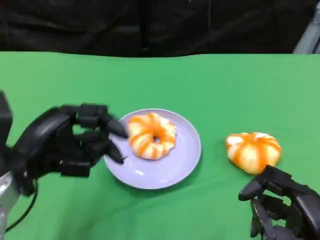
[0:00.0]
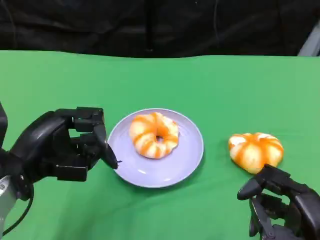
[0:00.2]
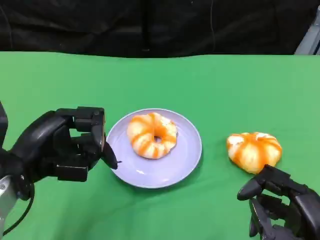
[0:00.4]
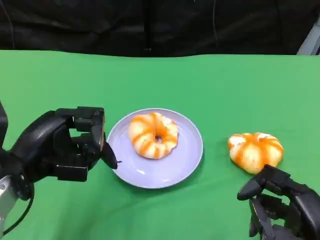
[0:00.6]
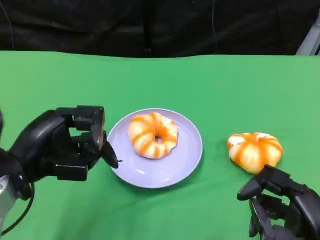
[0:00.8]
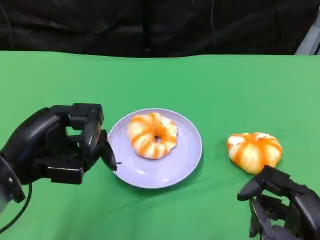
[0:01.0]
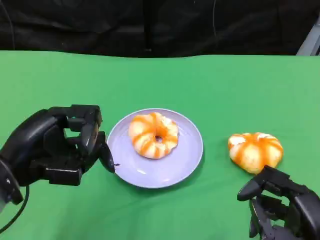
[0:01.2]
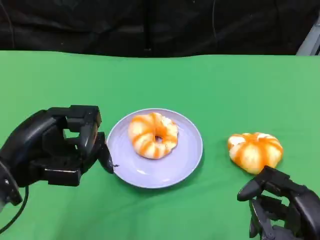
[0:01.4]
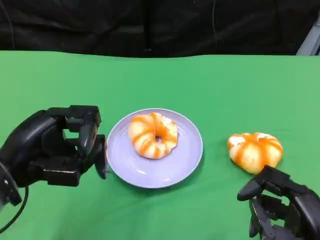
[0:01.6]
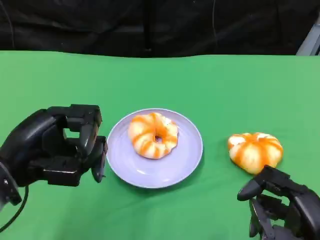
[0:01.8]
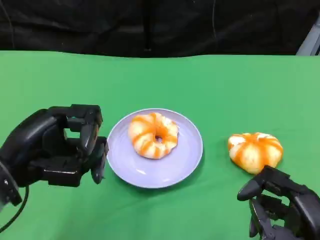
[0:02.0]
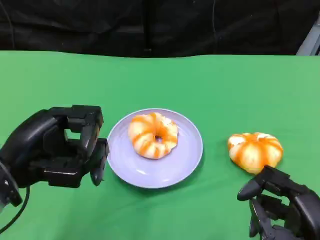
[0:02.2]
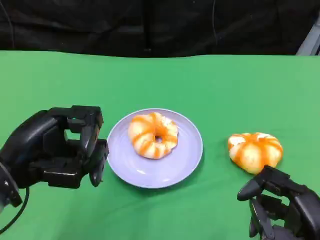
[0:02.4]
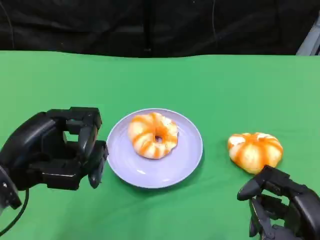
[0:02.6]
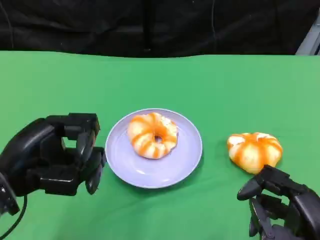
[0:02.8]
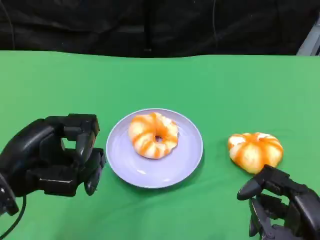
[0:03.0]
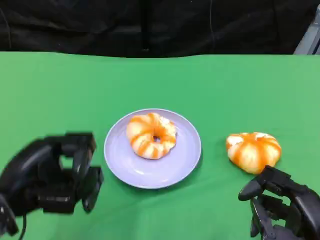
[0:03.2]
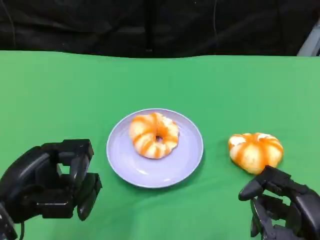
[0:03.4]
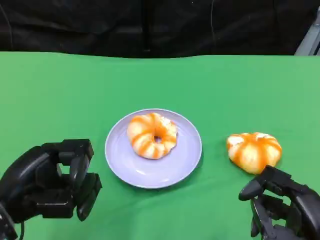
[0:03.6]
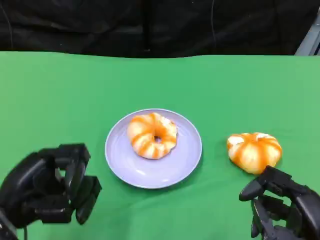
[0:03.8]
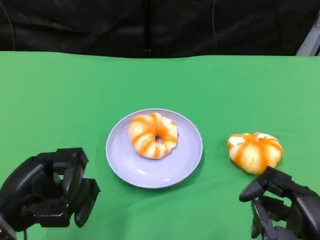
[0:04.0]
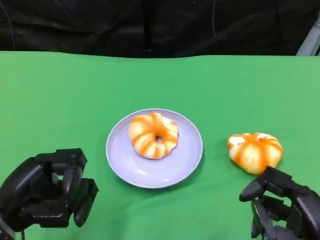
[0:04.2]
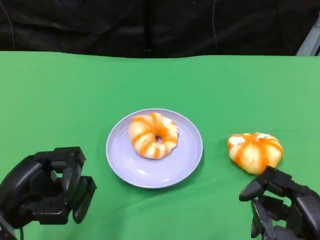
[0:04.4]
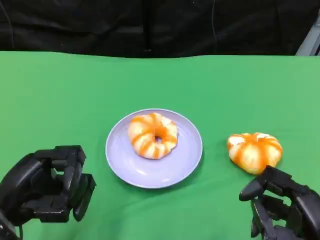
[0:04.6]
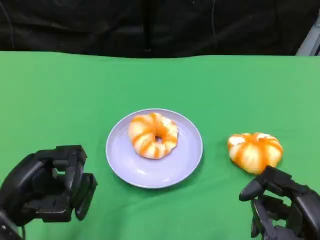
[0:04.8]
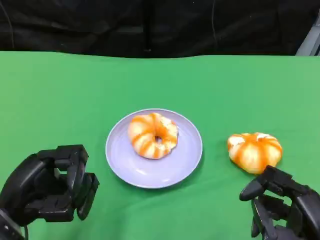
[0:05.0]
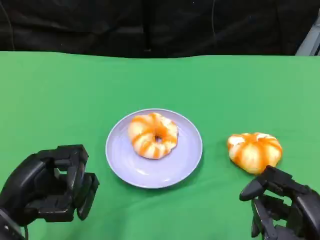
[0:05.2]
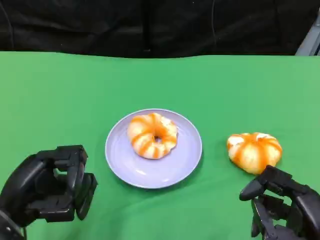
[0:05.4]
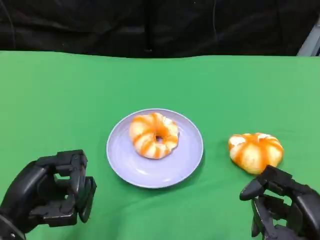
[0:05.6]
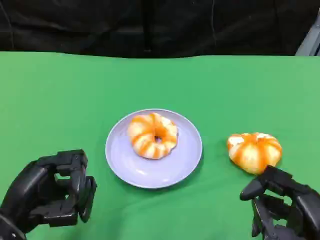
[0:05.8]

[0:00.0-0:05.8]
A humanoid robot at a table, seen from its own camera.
Task of the whole recording: Grasp the bread from the table and place it into the plate.
0:00.0 to 0:01.4: The hands make only small movements.
0:01.4 to 0:02.8: Both hands stay put.
0:02.8 to 0:04.4: The left hand heads downward, covering roughly 5 cm.
0:04.4 to 0:05.8: There are only small adjustments of the hands.

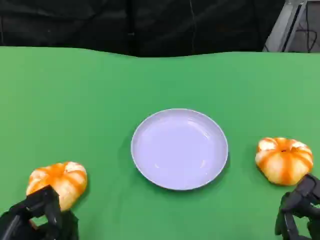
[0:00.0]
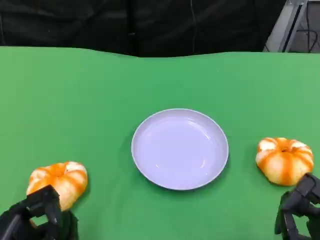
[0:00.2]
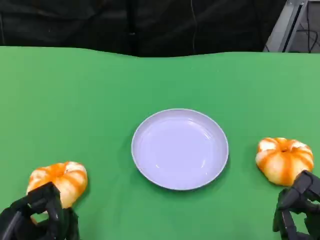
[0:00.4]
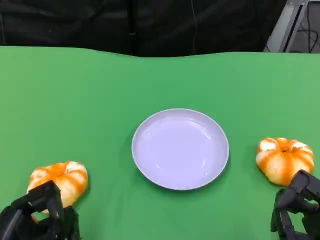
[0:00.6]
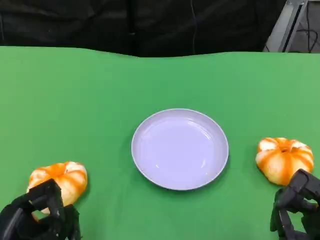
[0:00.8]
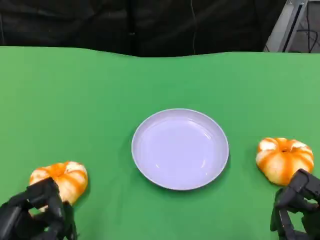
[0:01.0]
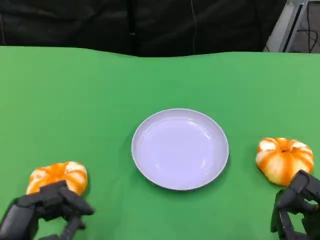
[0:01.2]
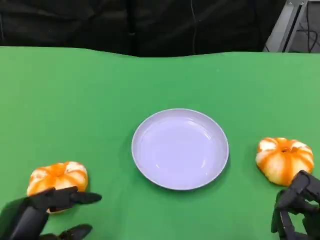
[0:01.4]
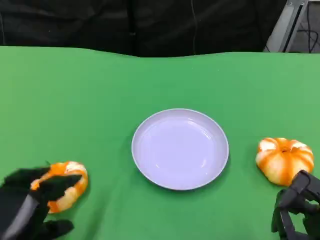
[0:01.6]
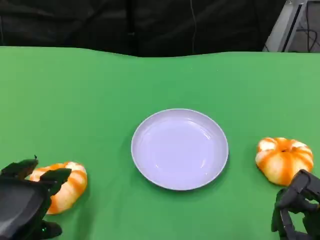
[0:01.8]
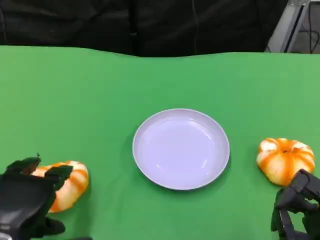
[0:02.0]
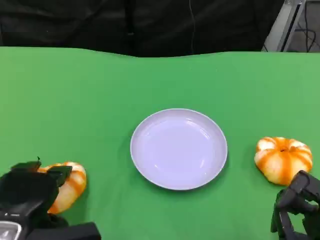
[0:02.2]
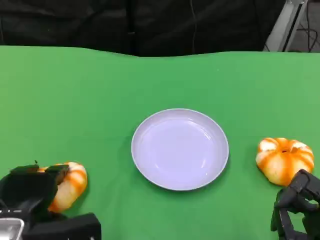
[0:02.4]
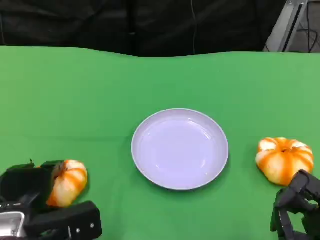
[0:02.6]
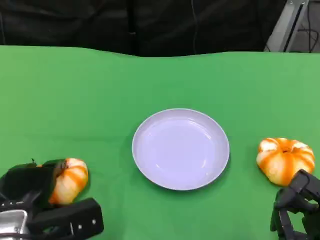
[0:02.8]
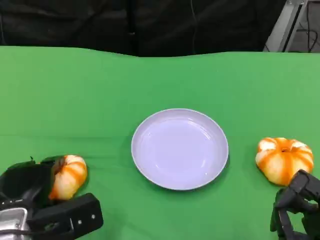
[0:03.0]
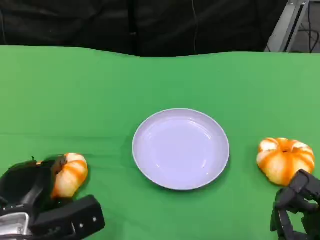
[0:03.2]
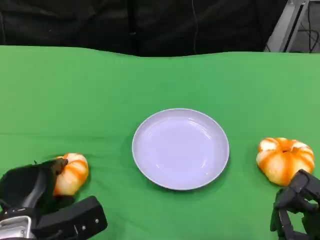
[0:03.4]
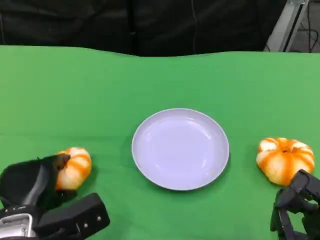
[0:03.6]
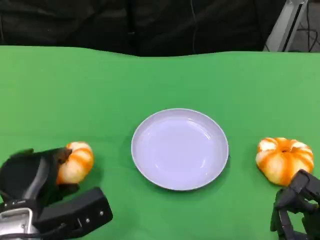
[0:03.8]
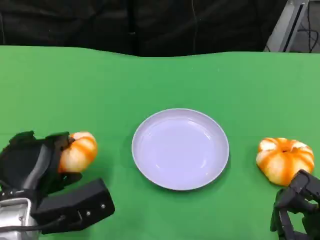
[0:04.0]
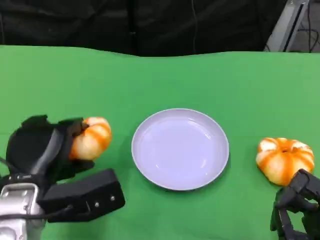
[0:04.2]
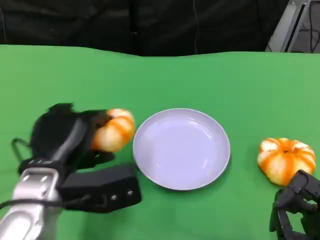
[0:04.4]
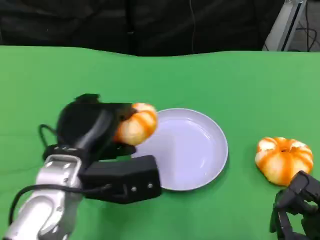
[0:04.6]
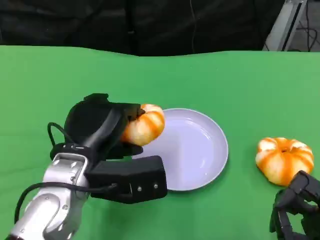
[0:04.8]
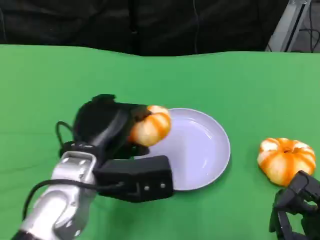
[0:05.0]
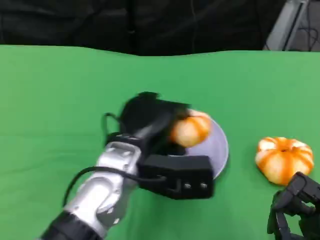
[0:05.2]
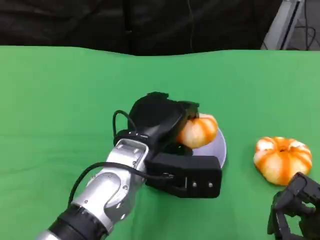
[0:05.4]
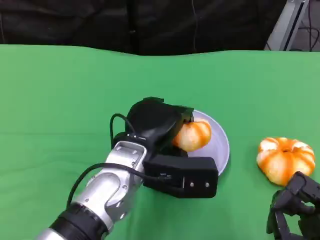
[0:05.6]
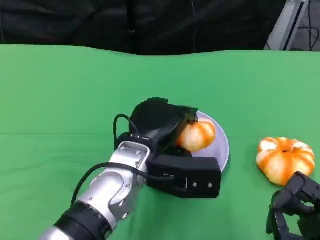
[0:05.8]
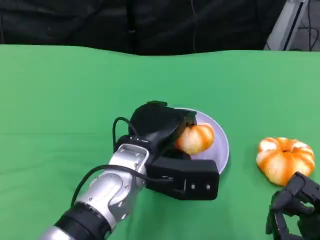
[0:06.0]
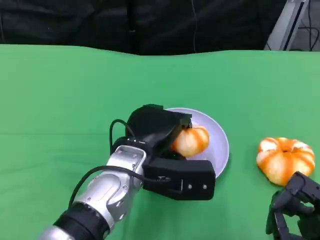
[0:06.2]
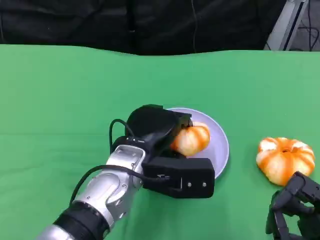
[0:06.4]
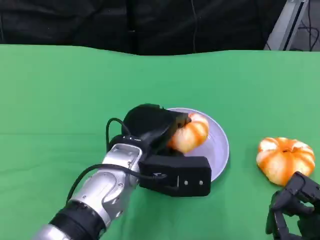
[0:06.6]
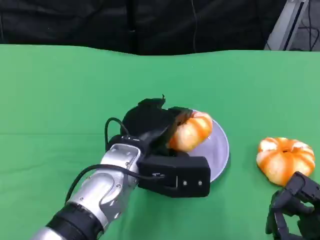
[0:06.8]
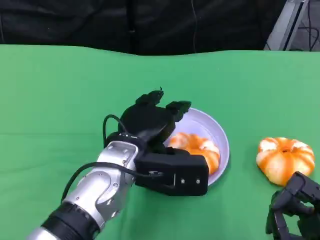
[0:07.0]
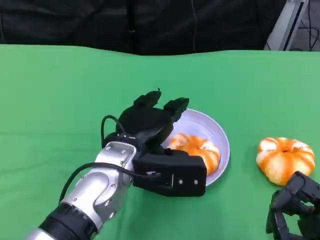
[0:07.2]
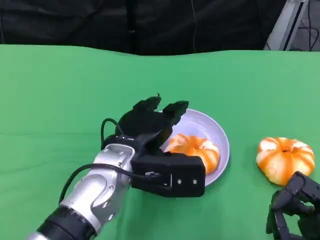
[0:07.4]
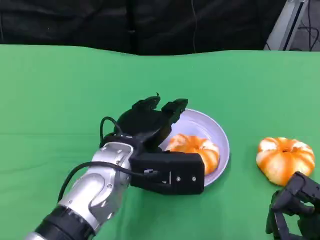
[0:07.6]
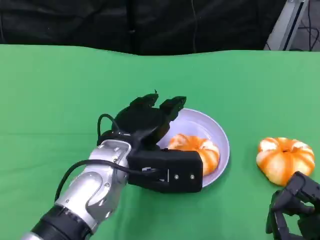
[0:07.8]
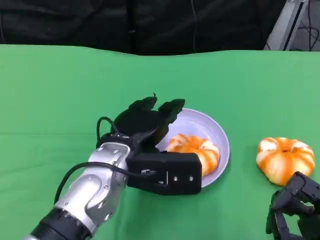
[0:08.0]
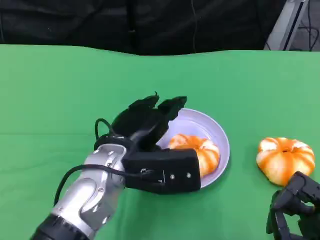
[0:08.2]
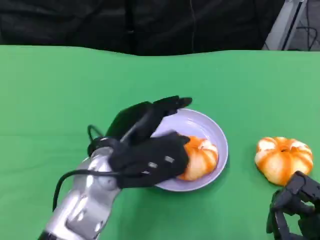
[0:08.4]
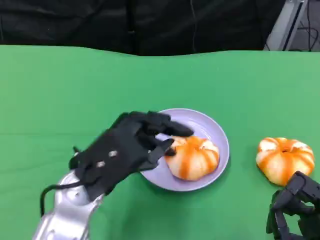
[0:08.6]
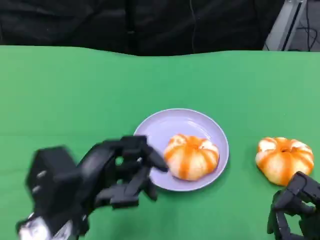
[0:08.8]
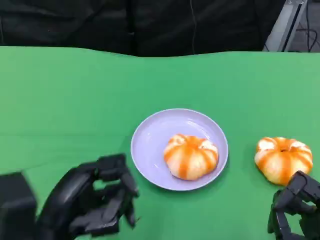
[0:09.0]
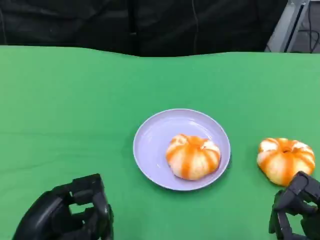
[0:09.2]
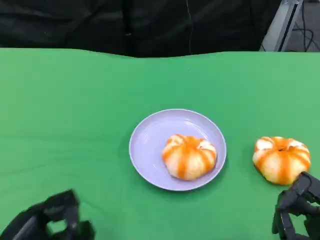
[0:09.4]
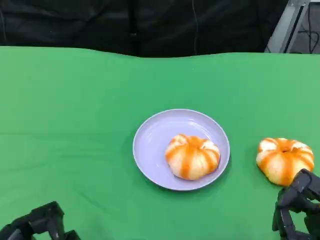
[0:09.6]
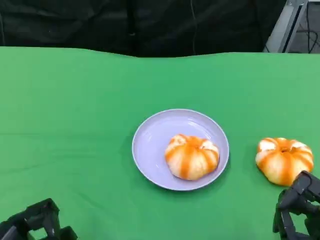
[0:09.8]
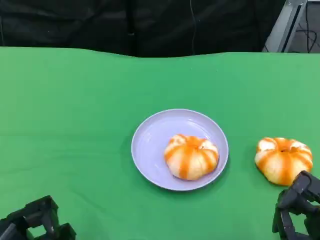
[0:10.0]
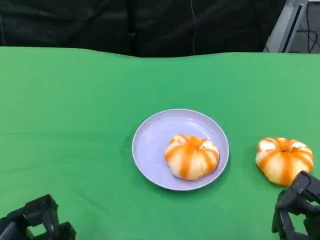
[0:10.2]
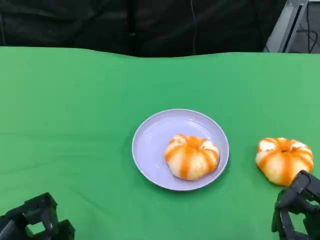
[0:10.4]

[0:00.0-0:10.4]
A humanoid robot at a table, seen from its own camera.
Task of the whole recording: Grasp the bread from the table and place it into the plate.
0:01.4 to 0:03.0: The left hand heads forward, covering some 10 cm.
0:03.0 to 0:04.4: The left hand is displaced upward and to the right by roughly 10 cm.
0:04.4 to 0:06.0: The left hand shifts approximately 10 cm to the right.
0:06.0 to 0:07.4: There are only small adjustments of the hands.
0:07.4 to 0:09.0: The left hand travels to the left and backward by roughly 15 cm.
0:09.0 to 0:10.4: The left hand goes about 10 cm to the left and downward.

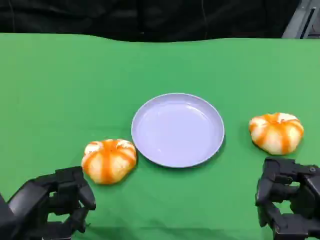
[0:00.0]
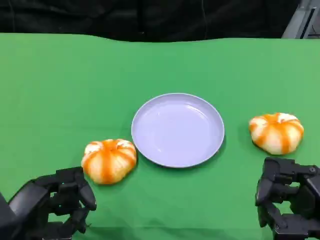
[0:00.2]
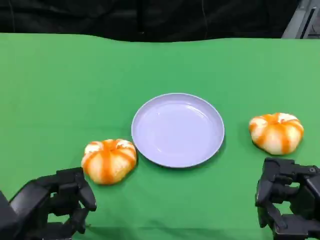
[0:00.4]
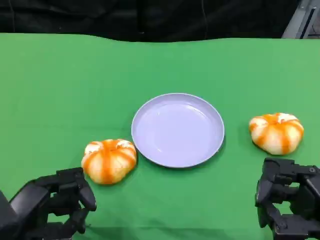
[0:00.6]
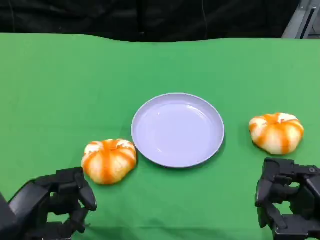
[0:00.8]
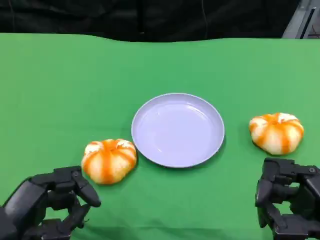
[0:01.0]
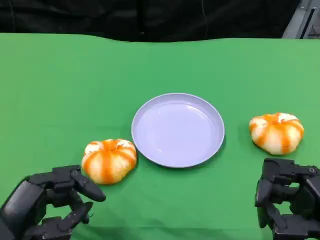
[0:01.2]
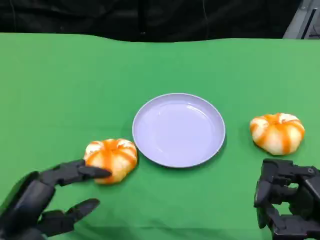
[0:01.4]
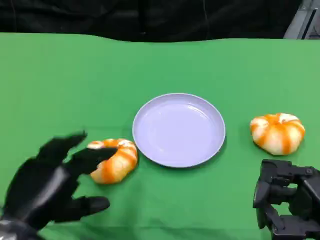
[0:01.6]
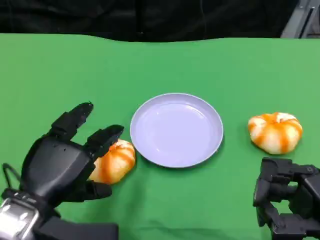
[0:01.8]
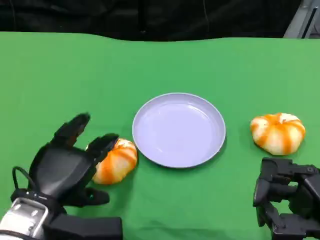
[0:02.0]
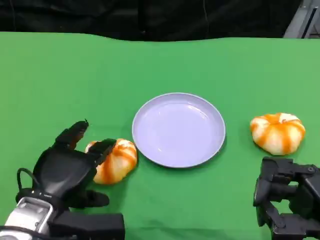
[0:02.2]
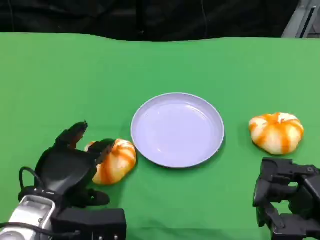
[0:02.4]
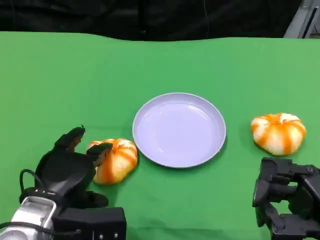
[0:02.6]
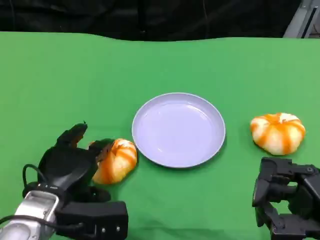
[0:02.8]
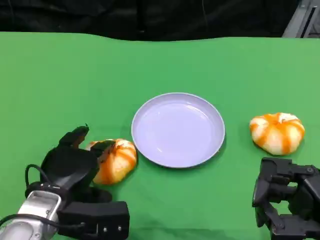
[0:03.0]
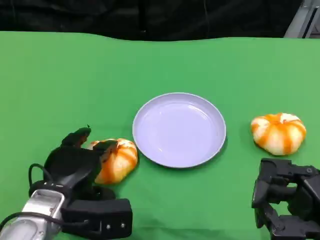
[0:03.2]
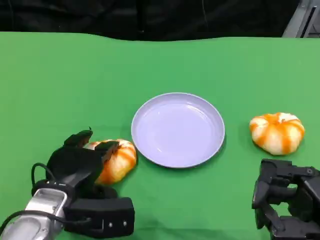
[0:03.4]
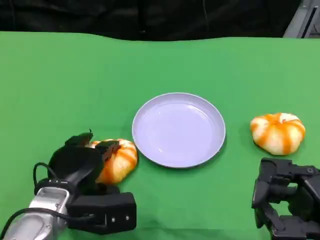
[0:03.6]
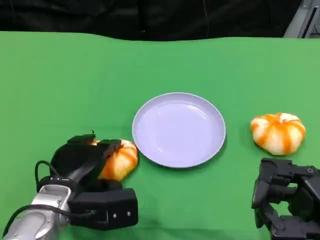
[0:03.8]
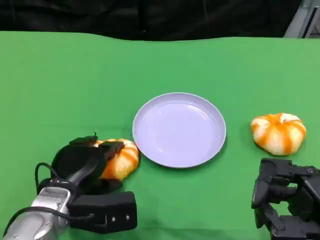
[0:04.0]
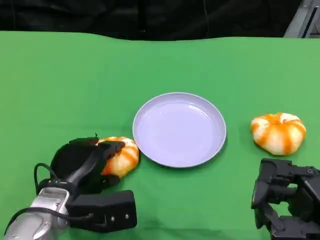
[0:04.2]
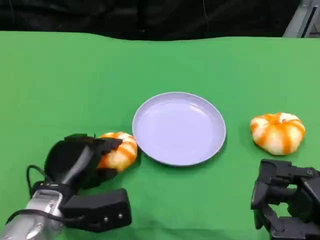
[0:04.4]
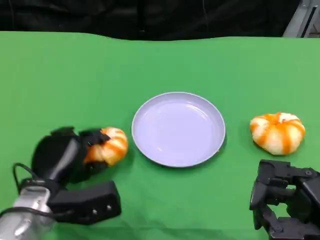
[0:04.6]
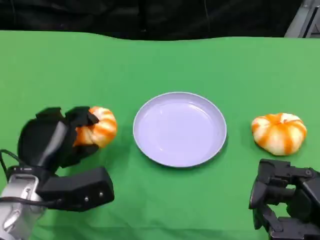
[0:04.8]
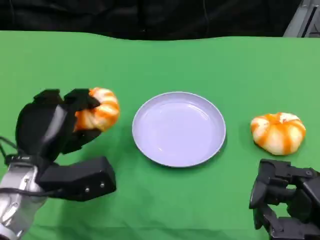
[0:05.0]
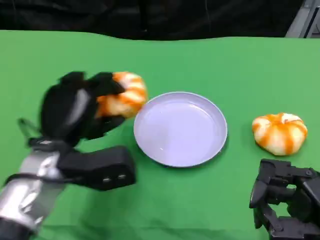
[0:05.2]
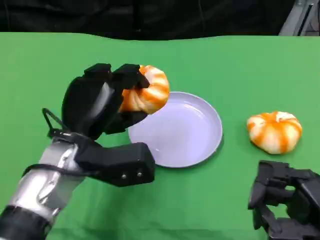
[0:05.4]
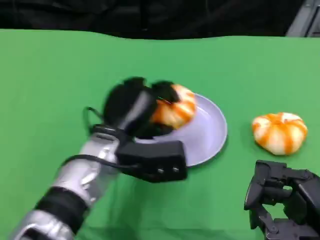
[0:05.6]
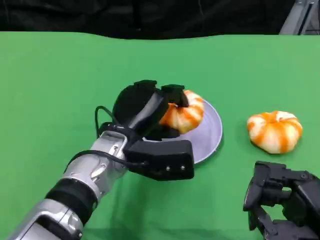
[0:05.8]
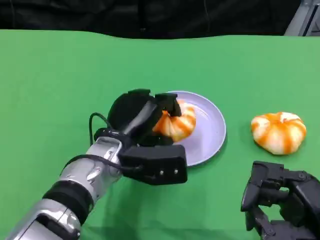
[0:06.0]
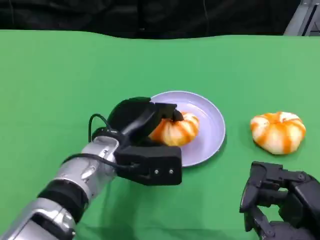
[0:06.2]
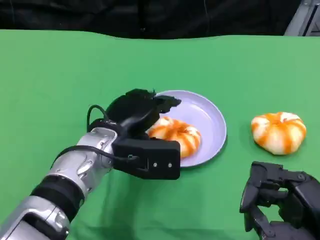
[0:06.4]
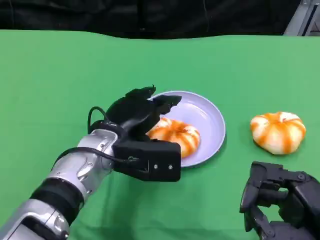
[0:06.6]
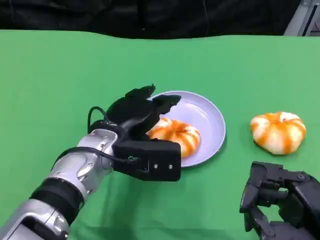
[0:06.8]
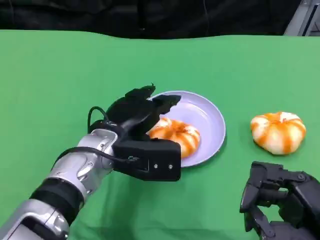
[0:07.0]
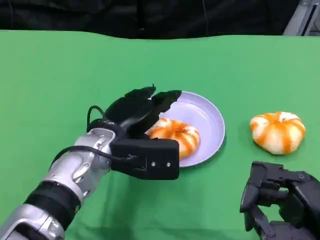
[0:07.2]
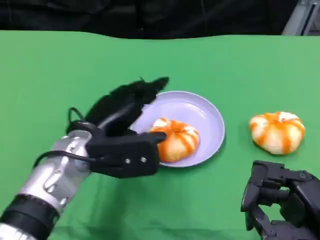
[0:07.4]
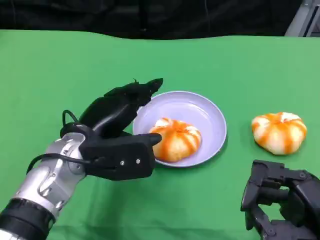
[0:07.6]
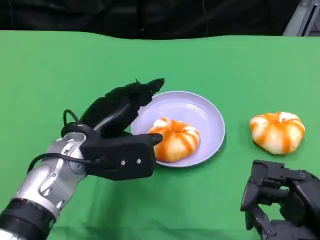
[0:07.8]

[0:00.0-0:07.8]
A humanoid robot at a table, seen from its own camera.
Task of the whole recording: Grasp the bread from the table and place it into the plate.
0:01.6 to 0:03.2: The left hand is displaced forward and downward by roughly 10 cm.
0:04.6 to 0:06.2: The left hand travels to the right by about 10 cm.
0:06.2 to 0:07.8: The left hand ends up about 5 cm from where it was.
